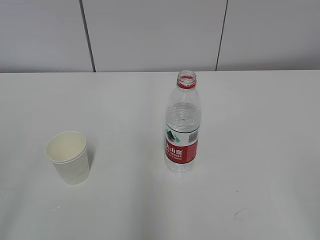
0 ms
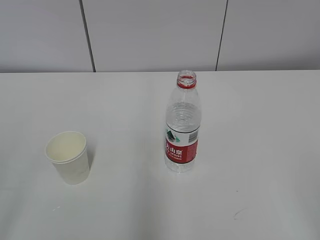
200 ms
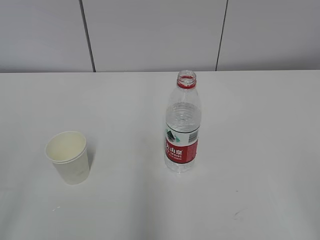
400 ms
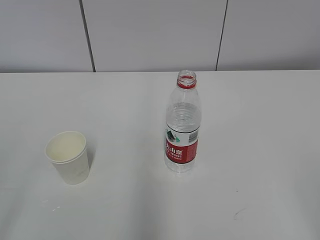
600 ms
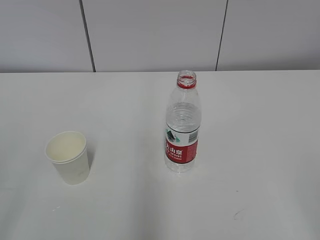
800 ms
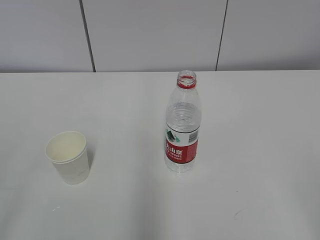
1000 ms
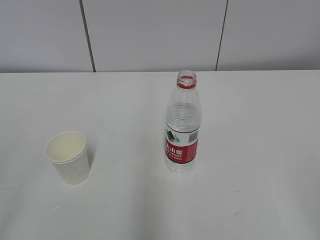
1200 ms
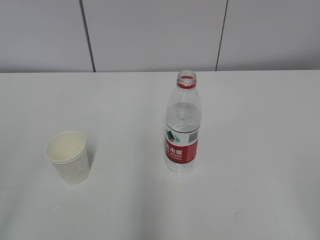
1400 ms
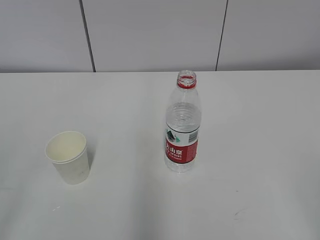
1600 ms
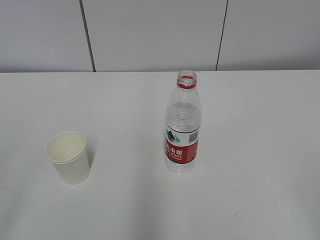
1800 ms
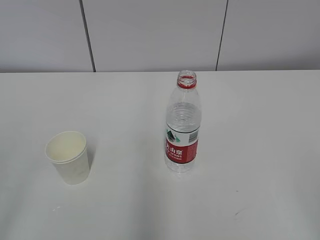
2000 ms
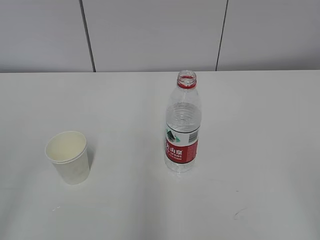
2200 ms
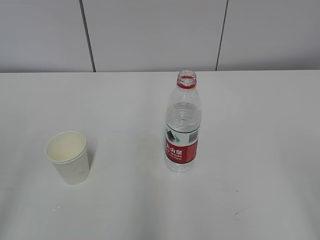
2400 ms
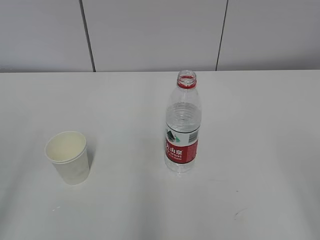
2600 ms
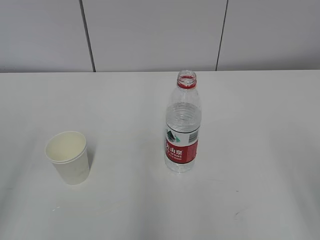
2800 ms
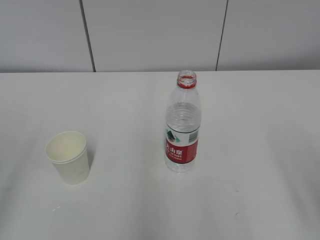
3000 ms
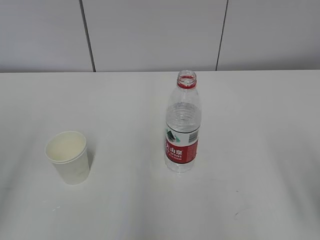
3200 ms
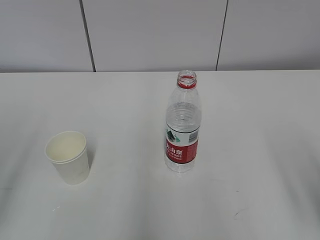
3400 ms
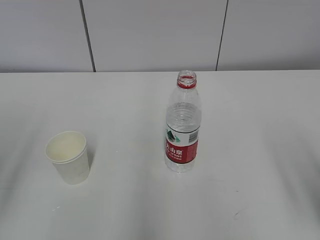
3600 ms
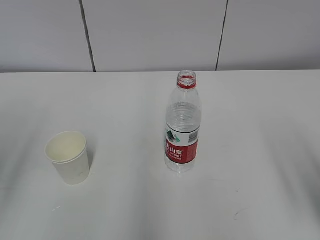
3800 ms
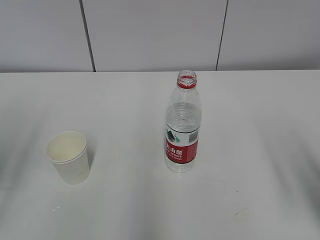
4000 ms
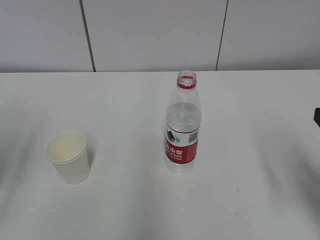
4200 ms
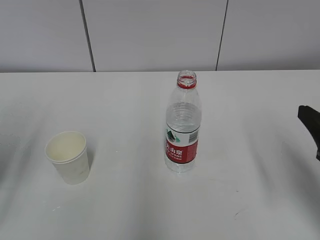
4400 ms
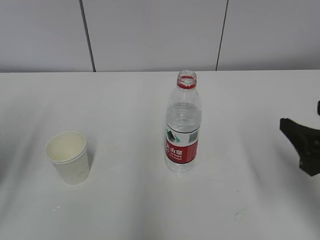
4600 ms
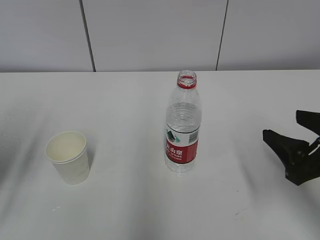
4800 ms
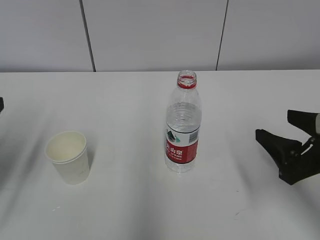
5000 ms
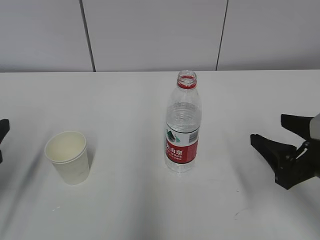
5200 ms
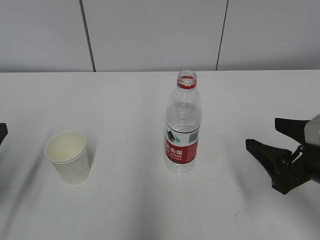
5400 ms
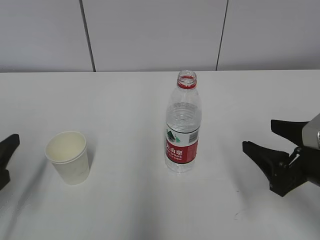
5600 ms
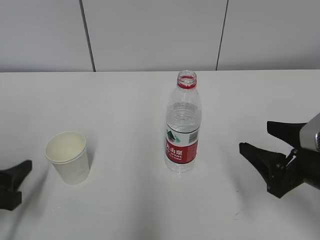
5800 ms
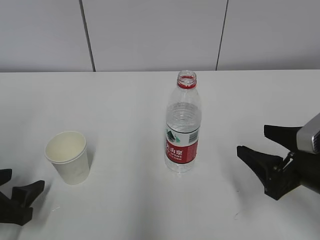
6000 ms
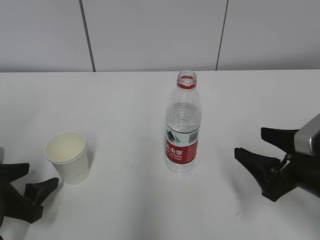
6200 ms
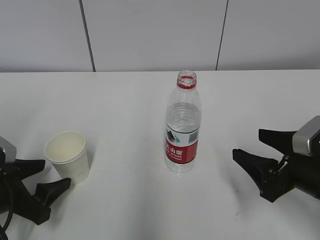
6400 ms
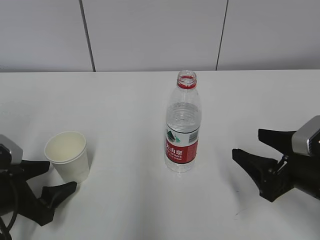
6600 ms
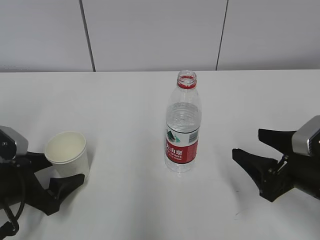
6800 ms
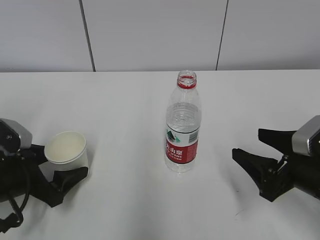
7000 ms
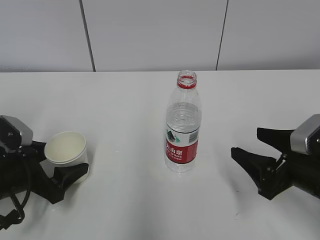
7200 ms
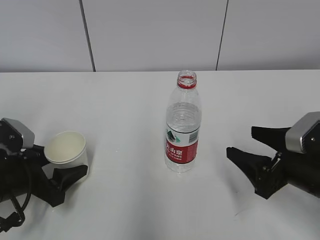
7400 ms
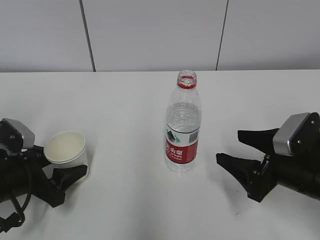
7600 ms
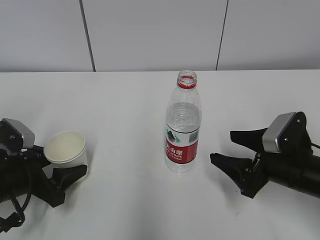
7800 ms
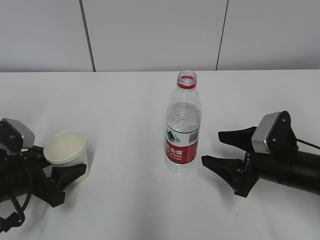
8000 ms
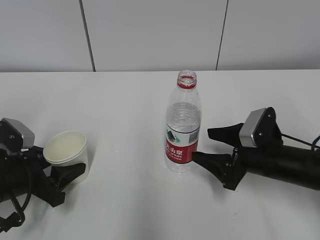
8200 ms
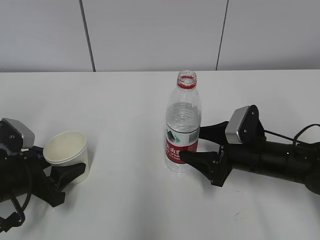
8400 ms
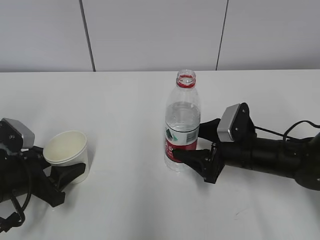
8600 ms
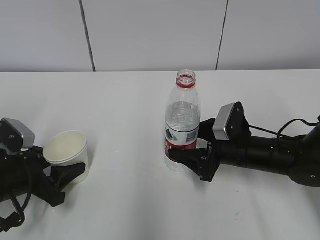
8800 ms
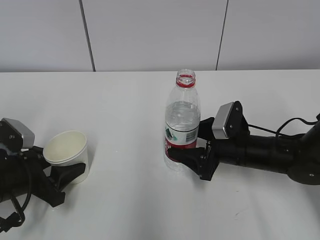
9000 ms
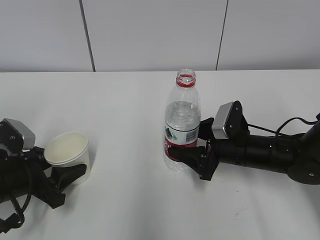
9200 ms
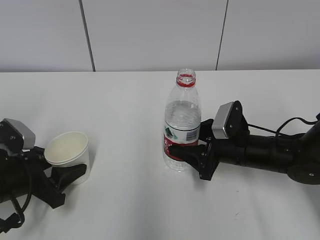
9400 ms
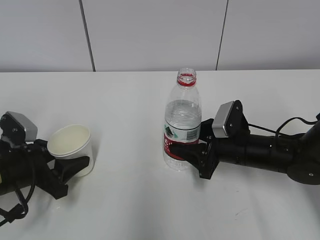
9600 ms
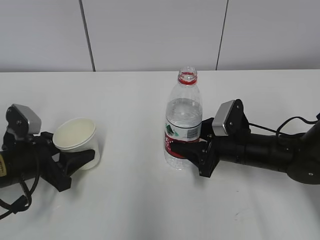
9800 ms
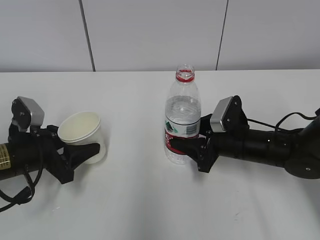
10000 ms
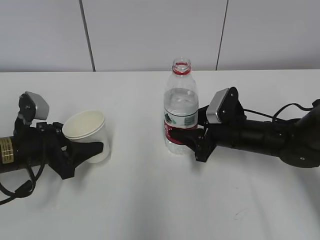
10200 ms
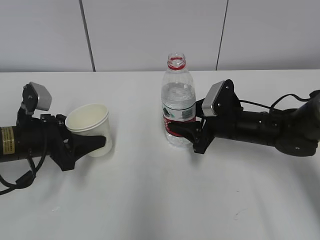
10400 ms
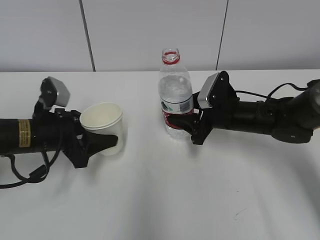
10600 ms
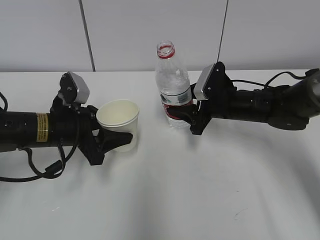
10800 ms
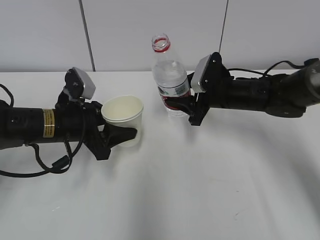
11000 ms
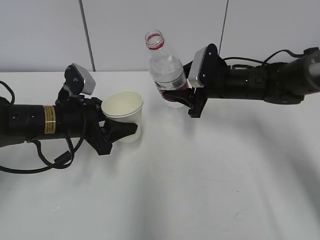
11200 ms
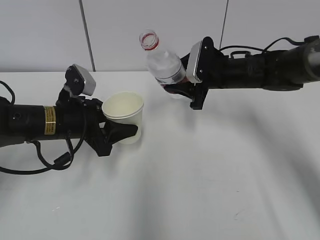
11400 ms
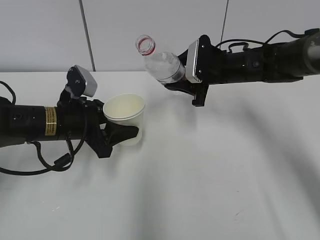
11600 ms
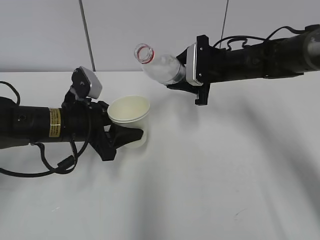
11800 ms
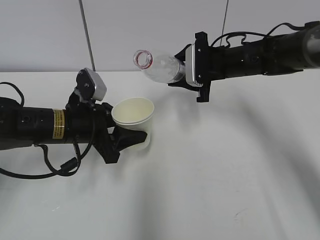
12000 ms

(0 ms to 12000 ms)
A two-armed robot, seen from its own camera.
Step, 0 ms - 7800 ms: Grab the paper cup with the left hand.
Step, 8000 ms - 8400 ms: Grab the water bottle with the right hand.
Step, 8600 ms - 11600 ms: Lift the paper cup with the left hand.
3000 ms - 4400 ms: The right gripper heads forward, covering some 10 cm.
4400 ms - 6000 ms: The right gripper goes roughly 5 cm downward. The left gripper is displaced downward by approximately 15 cm.
6000 ms - 7600 ms: The left gripper moves forward, about 5 cm, and opens and closes again.
7600 ms - 9000 ms: The right gripper goes approximately 10 cm forward and to the left, while the left gripper closes.
9000 ms - 10400 ms: The right gripper changes place by about 5 cm, and closes, while the left gripper shifts about 5 cm forward.
10400 ms - 12000 ms: The left gripper goes roughly 10 cm to the right; the right gripper travels forward and upward by roughly 15 cm.

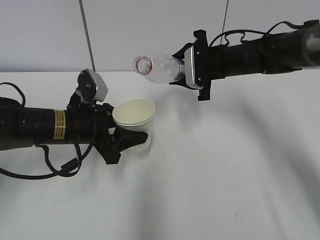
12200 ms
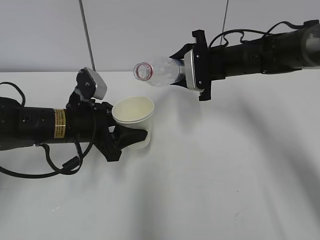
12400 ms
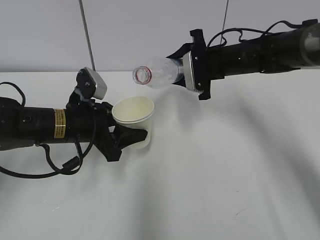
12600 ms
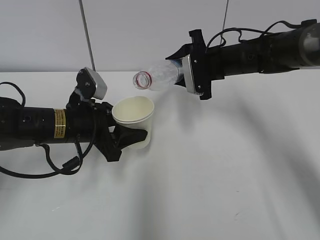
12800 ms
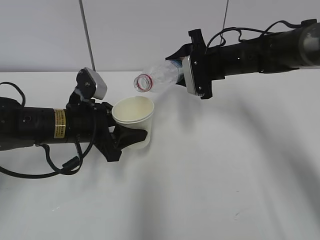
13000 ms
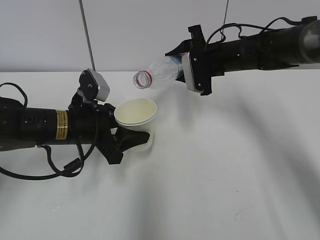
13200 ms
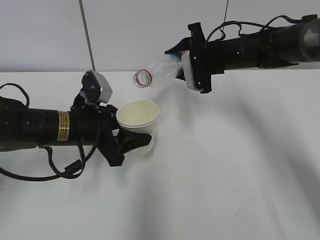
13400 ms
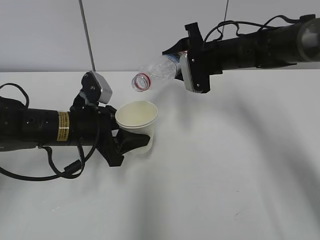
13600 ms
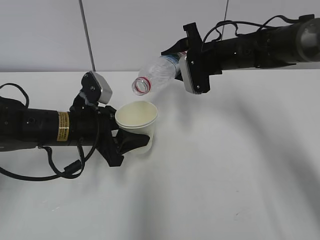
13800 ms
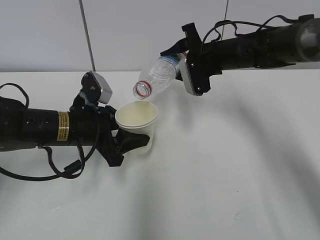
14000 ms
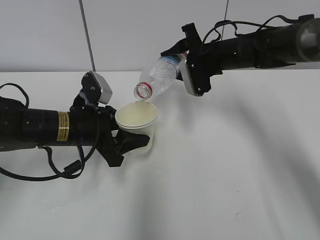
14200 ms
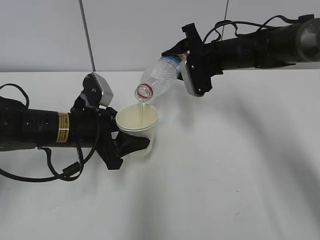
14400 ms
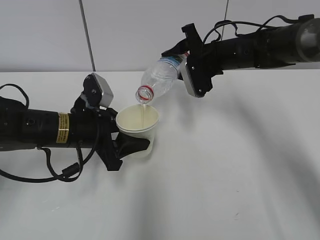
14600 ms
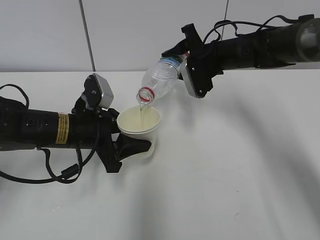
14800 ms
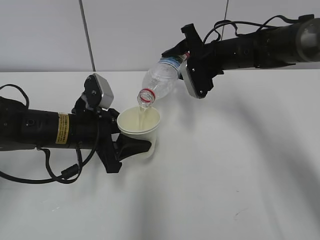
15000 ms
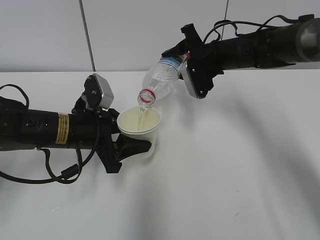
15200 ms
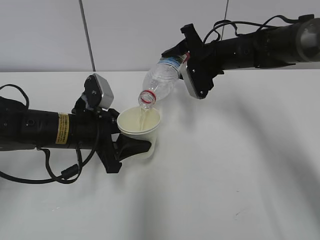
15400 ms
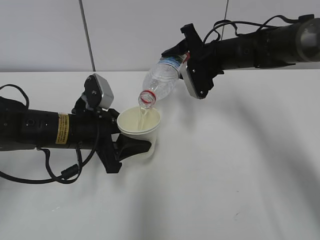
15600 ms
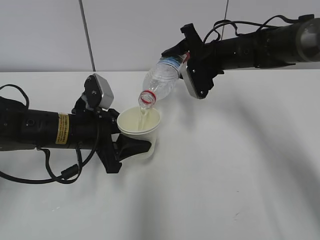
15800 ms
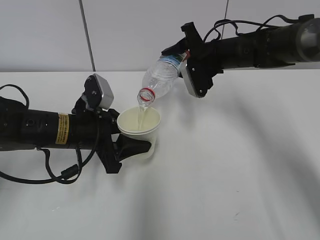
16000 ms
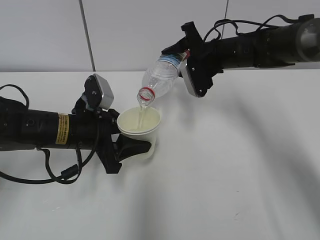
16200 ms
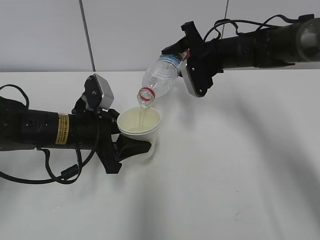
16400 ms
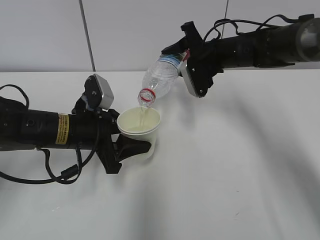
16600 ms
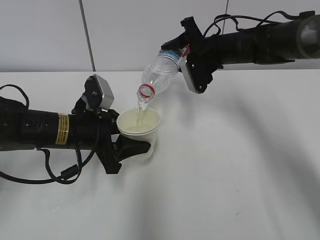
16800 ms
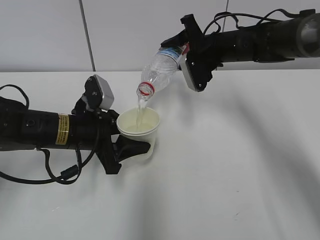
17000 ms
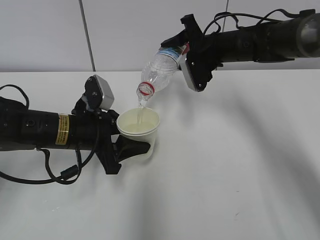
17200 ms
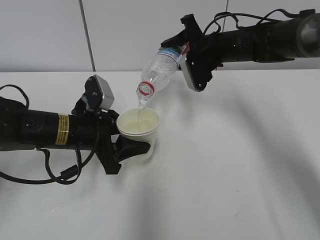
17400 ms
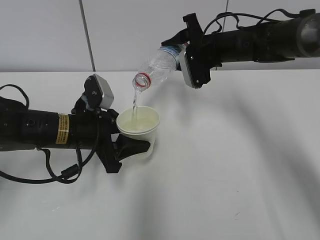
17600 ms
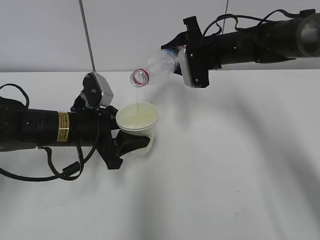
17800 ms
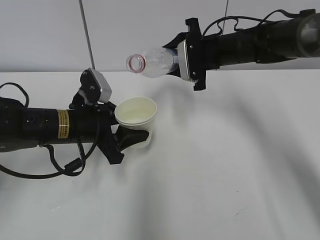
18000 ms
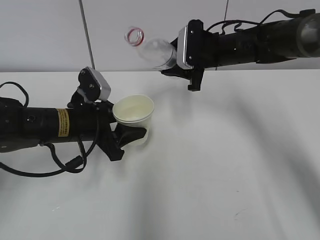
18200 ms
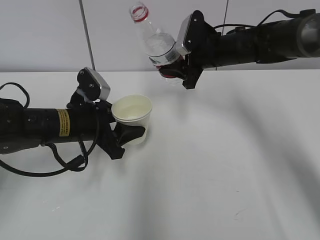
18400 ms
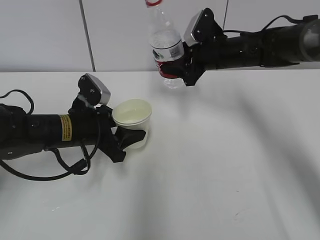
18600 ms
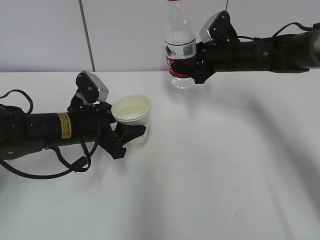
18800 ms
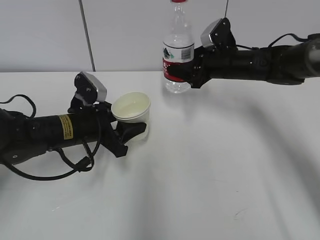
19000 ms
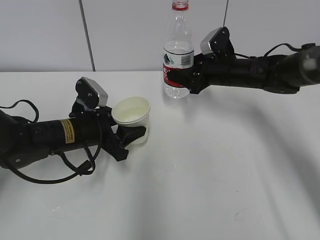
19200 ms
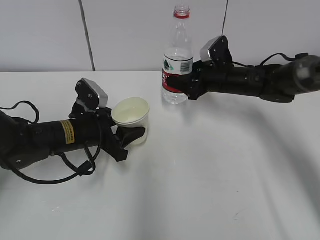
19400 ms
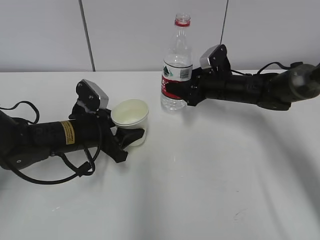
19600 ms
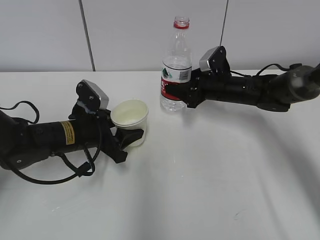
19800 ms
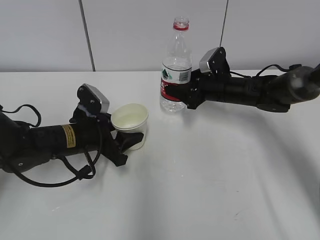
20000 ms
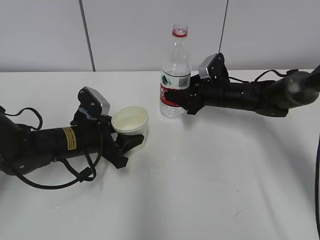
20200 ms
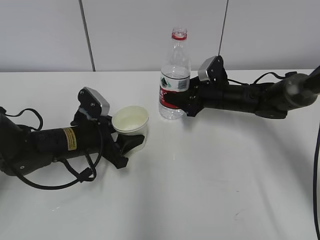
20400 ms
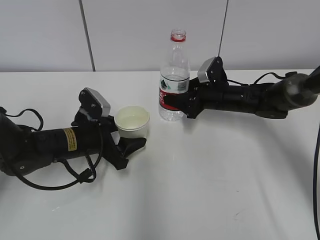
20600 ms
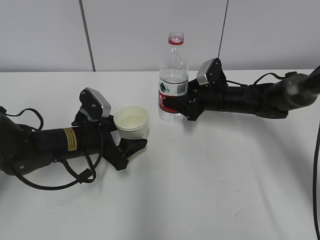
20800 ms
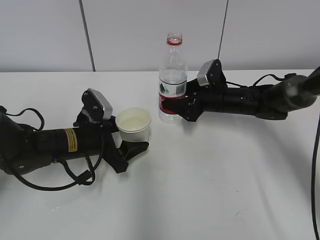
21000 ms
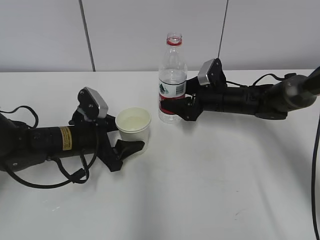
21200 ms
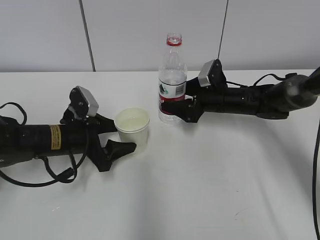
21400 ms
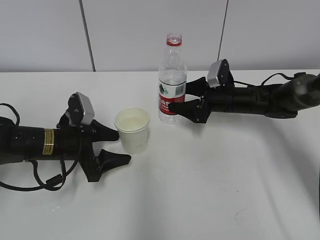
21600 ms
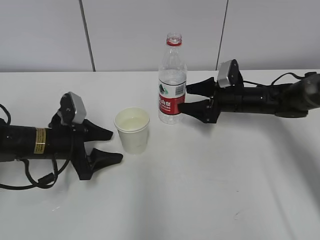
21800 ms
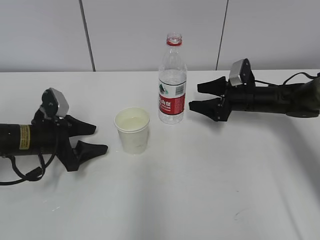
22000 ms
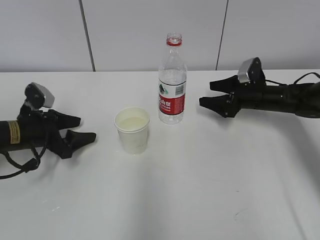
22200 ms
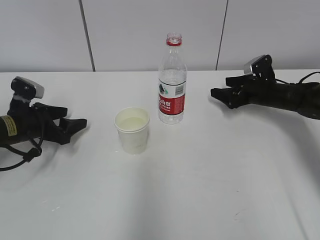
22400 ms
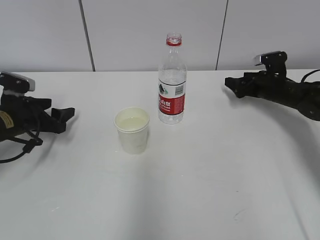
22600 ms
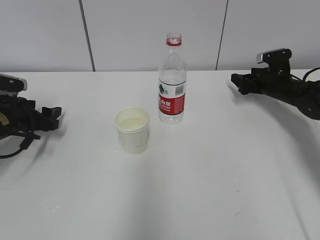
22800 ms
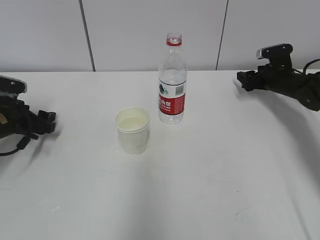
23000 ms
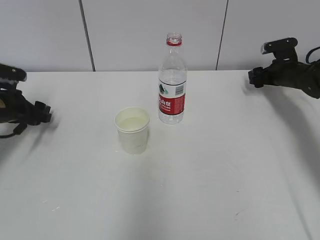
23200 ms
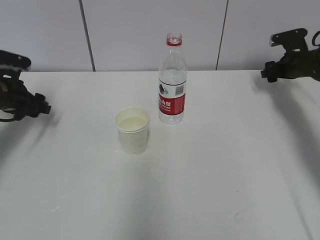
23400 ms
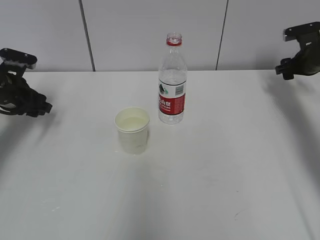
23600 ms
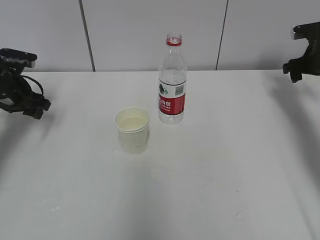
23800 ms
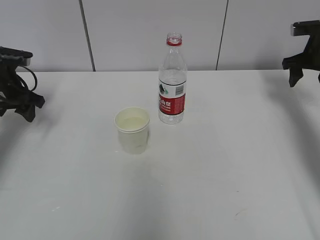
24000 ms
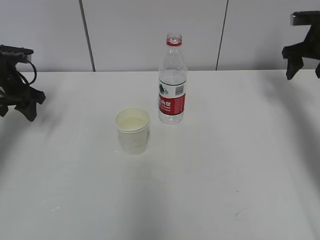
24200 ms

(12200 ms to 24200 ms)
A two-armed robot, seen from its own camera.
Step, 12200 ms - 14800 ms: Fill water with the left hand.
Step, 12200 ms - 14800 ms: Pour water with the right hand.
13800 ms - 15200 ms: The grippers stay close to where they were, moving slightly.
15200 ms - 16600 ms: Both grippers stay put.
18200 ms - 19800 ms: The right gripper travels downward by about 10 cm.
19800 ms - 21200 ms: The left gripper opens its fingers; the right gripper opens its fingers.
21200 ms - 22600 ms: The right gripper shifts approximately 15 cm to the right. Meanwhile the left gripper heads to the left, covering roughly 15 cm.
22600 ms - 24200 ms: The right gripper travels upward by some 15 cm. The left gripper moves upward, about 10 cm.
